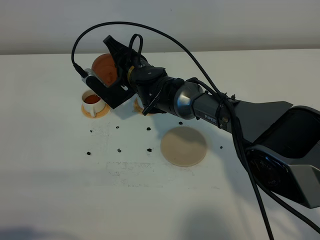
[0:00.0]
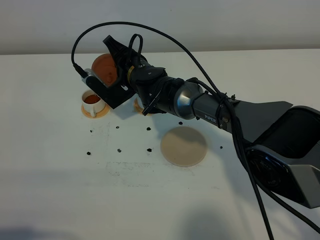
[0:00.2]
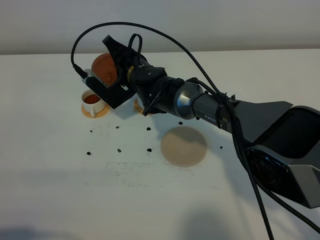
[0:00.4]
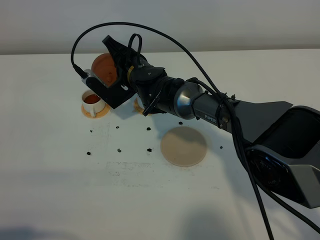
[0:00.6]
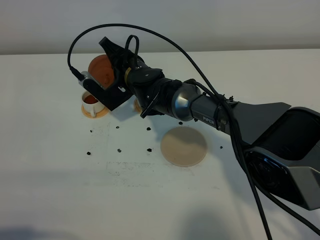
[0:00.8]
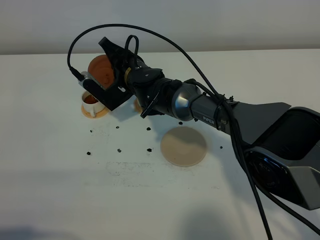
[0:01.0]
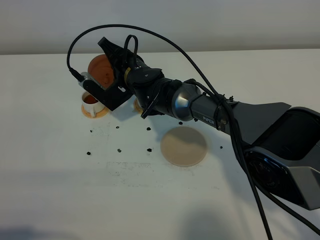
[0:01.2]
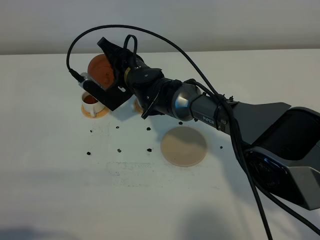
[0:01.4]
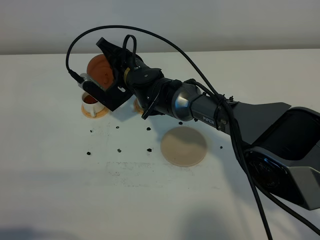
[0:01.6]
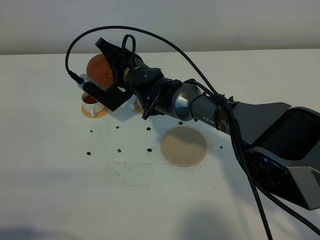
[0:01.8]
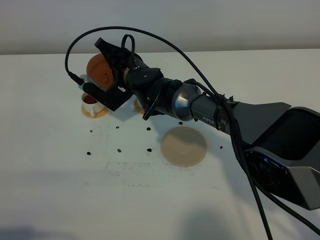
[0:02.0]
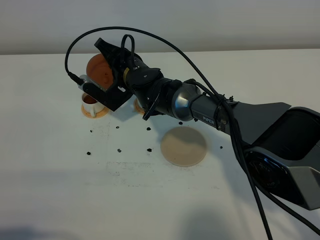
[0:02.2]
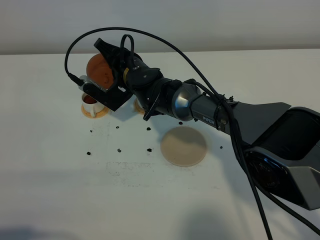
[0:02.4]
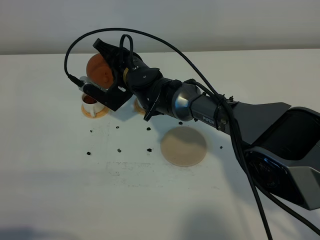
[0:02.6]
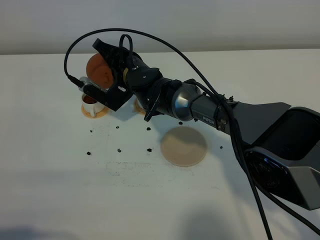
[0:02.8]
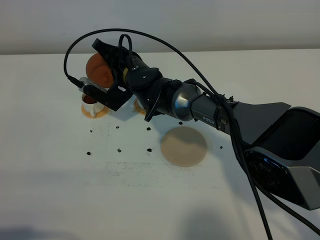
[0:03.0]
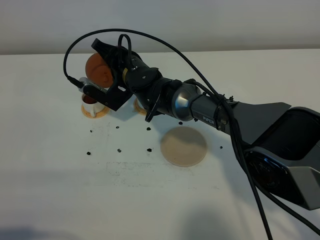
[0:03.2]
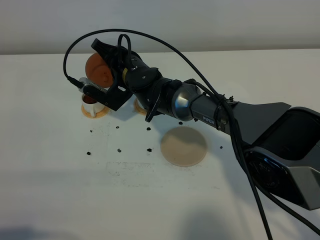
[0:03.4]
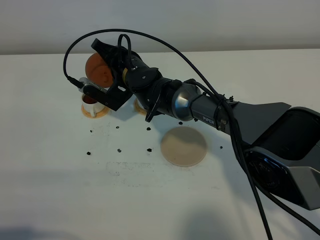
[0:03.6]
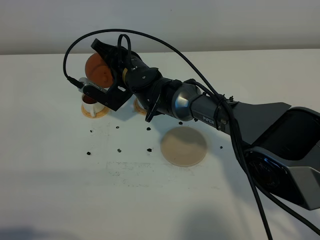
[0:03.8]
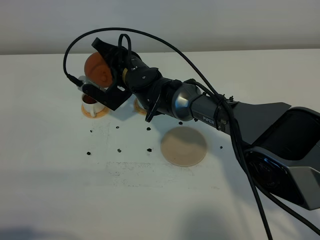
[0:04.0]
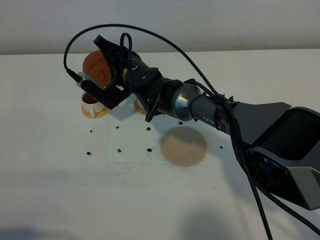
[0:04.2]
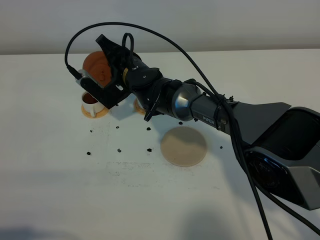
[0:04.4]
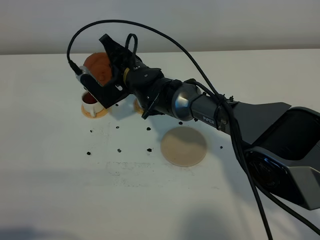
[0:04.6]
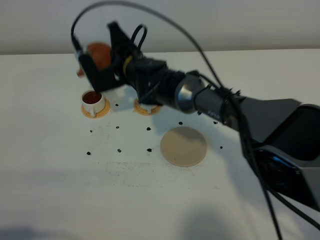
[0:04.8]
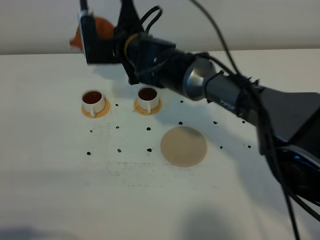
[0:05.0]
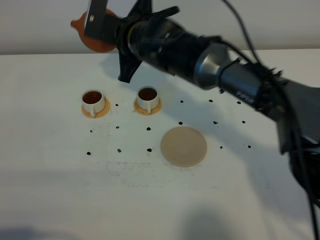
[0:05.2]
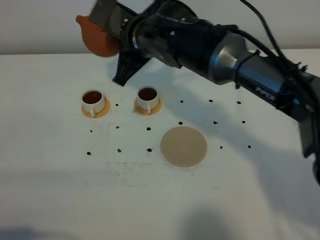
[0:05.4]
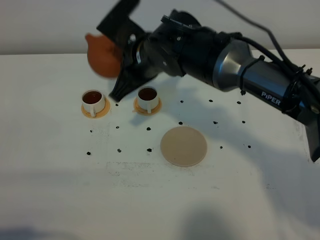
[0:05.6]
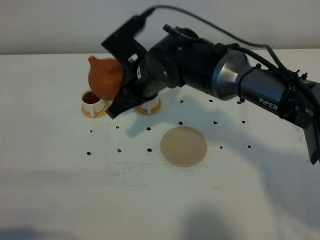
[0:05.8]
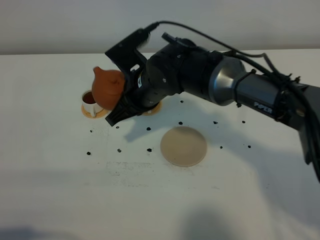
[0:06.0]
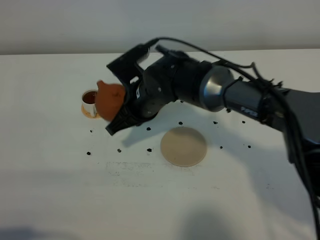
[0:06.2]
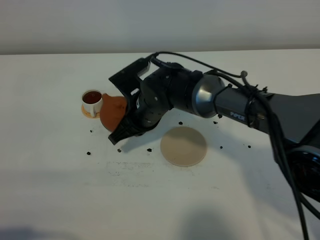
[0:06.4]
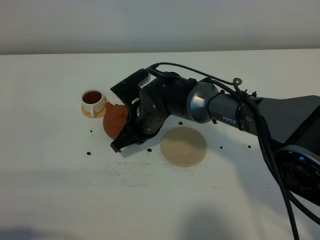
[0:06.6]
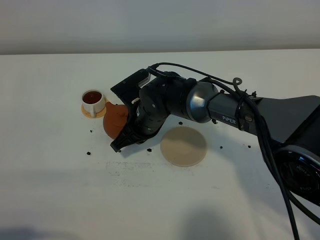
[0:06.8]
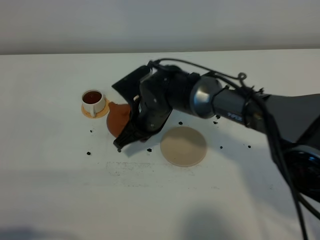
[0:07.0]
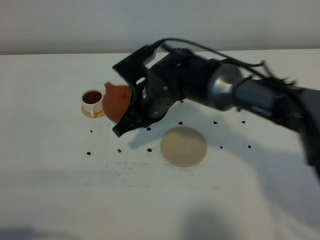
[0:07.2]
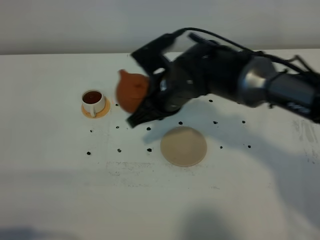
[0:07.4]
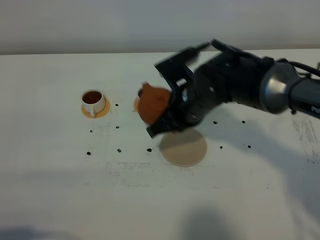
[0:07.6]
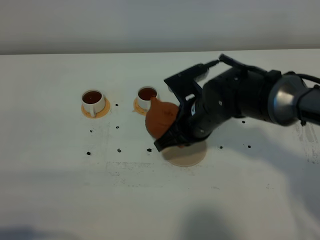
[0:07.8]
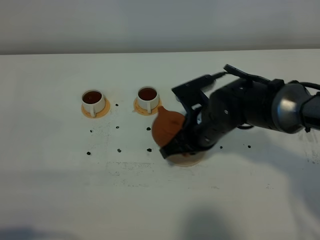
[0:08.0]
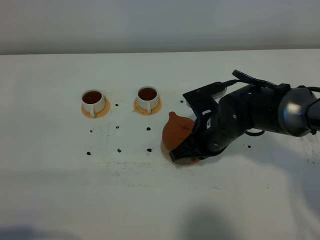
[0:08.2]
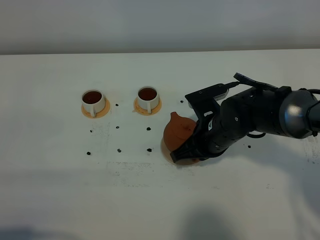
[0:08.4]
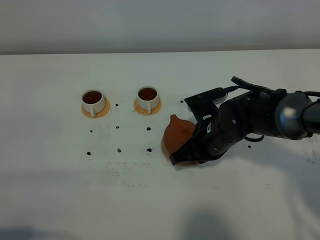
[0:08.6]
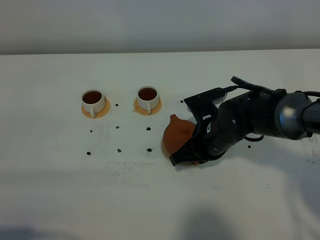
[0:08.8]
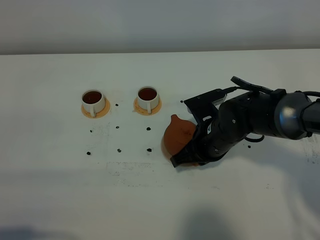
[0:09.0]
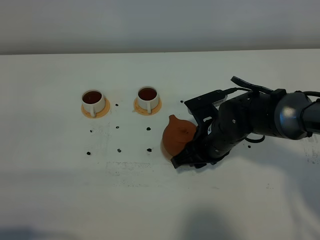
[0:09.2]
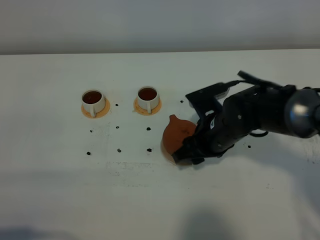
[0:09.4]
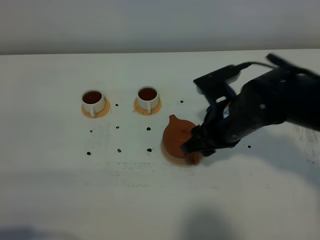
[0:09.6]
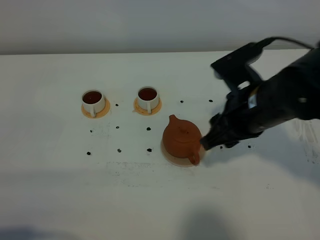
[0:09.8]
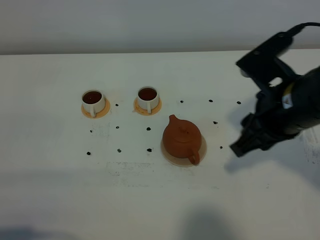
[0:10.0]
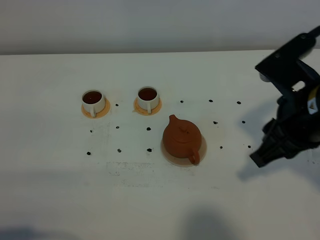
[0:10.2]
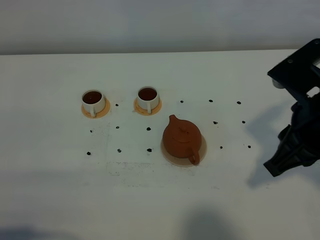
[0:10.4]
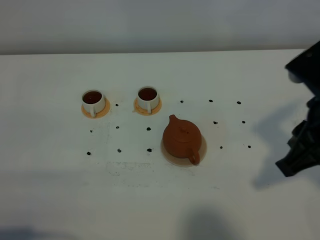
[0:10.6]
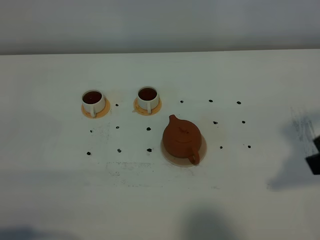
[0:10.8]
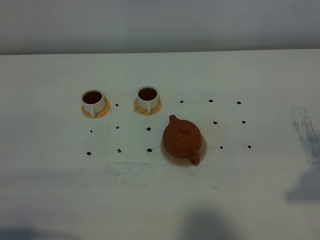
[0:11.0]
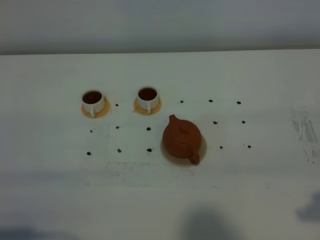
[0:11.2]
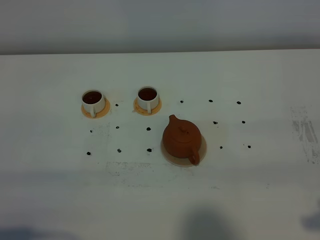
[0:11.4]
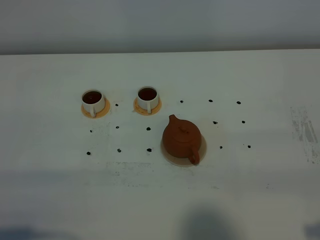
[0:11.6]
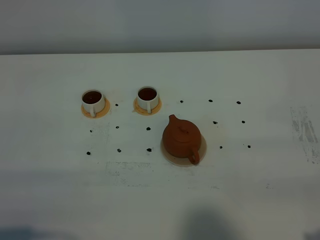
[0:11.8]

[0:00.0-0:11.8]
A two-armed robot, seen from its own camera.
Task of the whole recording: grasp the brown teapot and pour the tea into the two white teacups one by one, put the brown teapot back in its original place.
Step, 0:00.0 to 0:04.6: Pour tea into the teacup with the right gripper.
0:00.0 to 0:01.4: Both grippers stay put.
0:01.4 to 0:04.4: The grippers stay close to where they were, moving slightly.
0:04.4 to 0:06.0: The right gripper travels backward and upward by about 10 cm.
0:06.0 to 0:07.4: The right gripper travels downward and back again, roughly 10 cm each way.
0:07.4 to 0:08.8: The right gripper moves downward and to the right, some 10 cm.
0:08.8 to 0:10.4: The right gripper heads upward, backward and to the right, covering roughly 25 cm, and opens its fingers.
0:10.4 to 0:11.8: The right gripper moves backward, to the right and downward, some 20 cm.

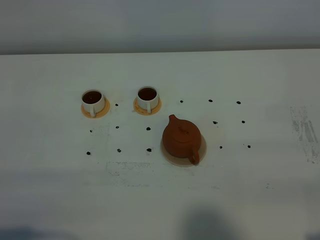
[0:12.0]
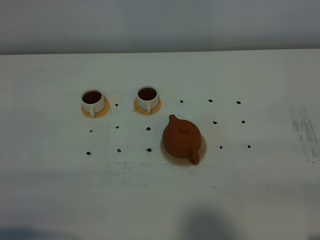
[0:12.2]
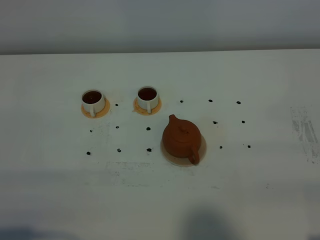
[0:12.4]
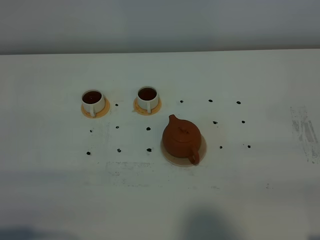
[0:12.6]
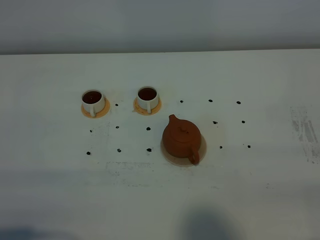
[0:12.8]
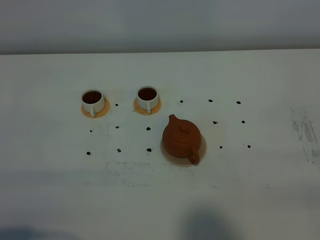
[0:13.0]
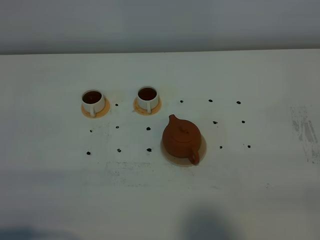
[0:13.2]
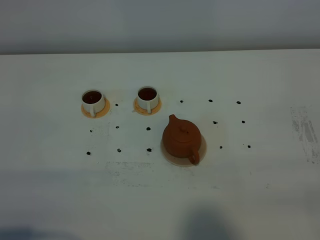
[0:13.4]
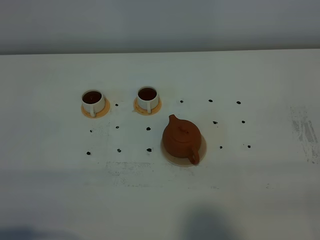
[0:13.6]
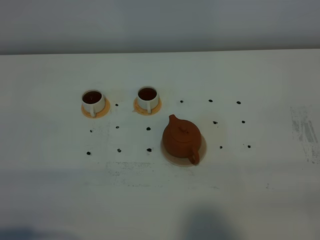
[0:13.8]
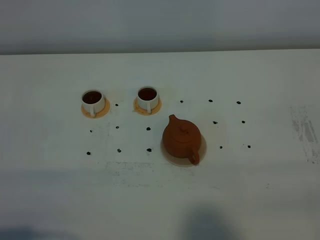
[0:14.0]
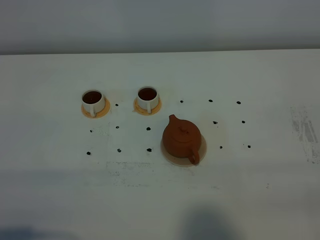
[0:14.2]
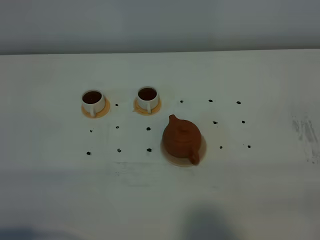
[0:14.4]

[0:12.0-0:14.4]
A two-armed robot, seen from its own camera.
Task of the whole recording: grasp the brown teapot and pour the tea into the two white teacups one by one, put the brown teapot back in its original place.
0:13.2 to 0:14.4: The two grippers keep their place.

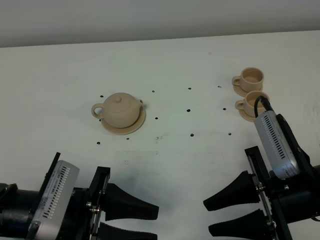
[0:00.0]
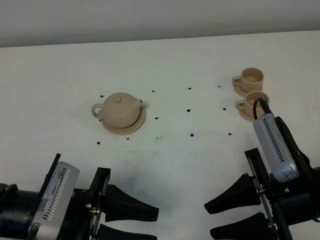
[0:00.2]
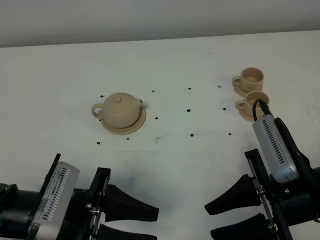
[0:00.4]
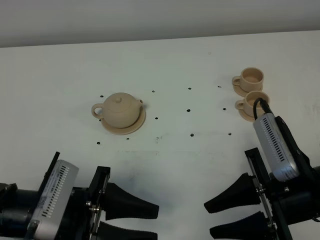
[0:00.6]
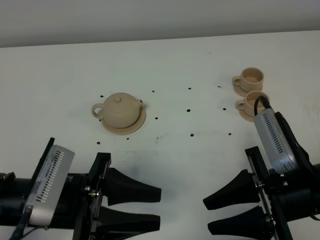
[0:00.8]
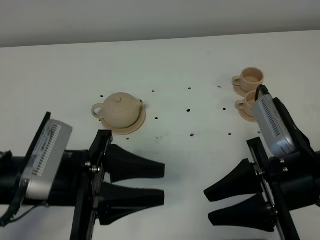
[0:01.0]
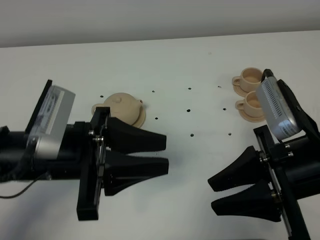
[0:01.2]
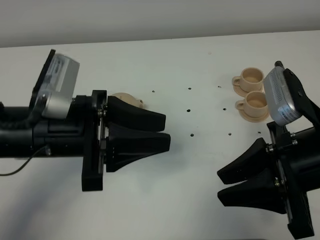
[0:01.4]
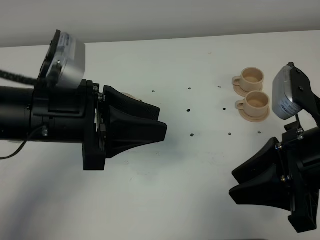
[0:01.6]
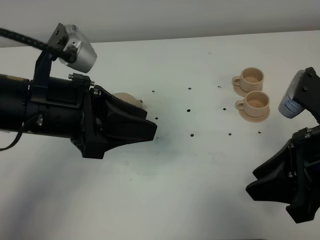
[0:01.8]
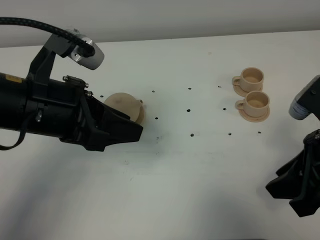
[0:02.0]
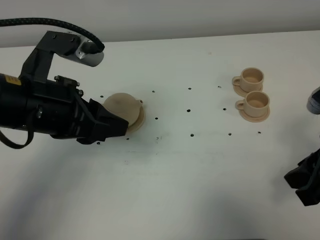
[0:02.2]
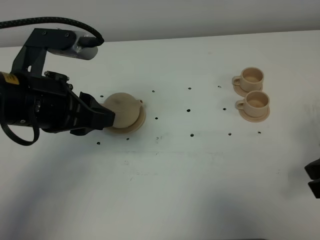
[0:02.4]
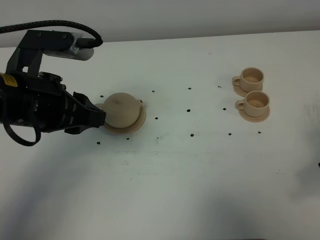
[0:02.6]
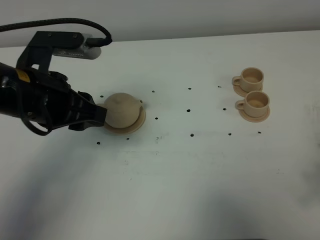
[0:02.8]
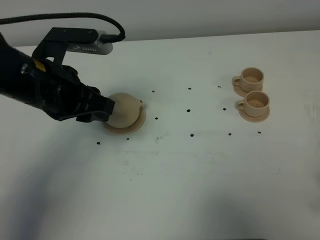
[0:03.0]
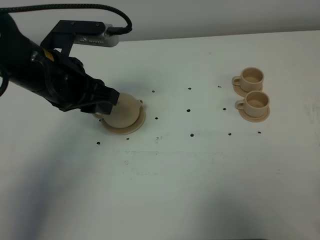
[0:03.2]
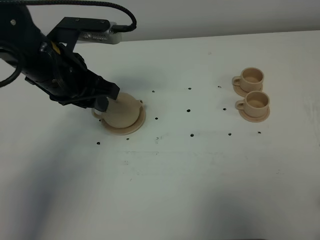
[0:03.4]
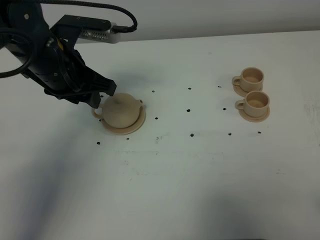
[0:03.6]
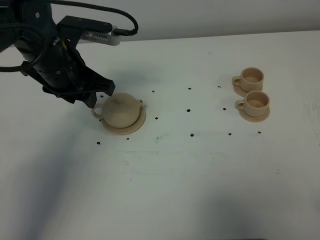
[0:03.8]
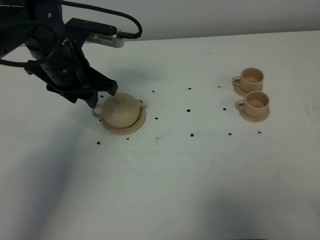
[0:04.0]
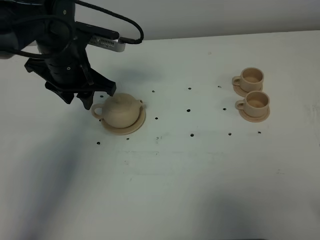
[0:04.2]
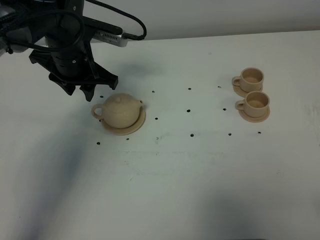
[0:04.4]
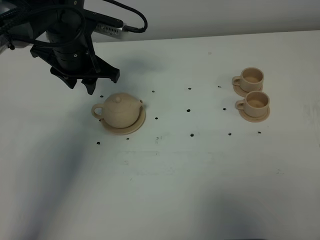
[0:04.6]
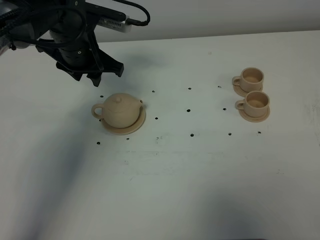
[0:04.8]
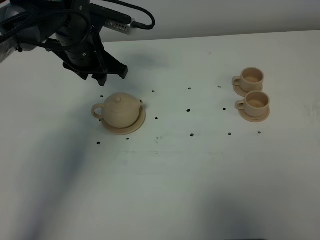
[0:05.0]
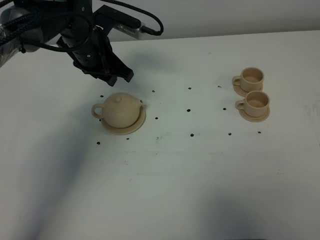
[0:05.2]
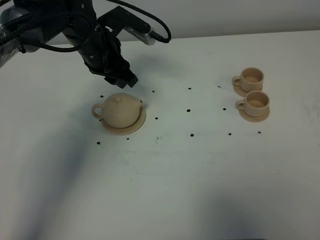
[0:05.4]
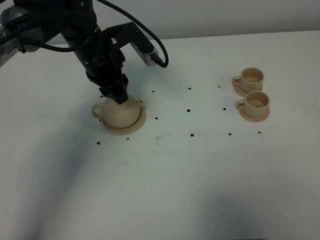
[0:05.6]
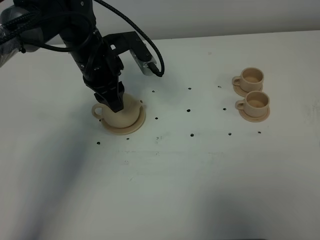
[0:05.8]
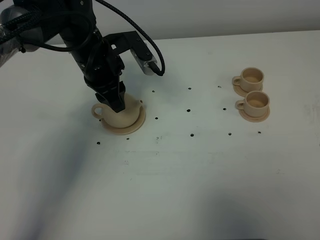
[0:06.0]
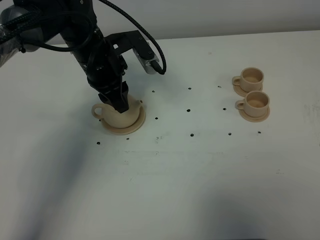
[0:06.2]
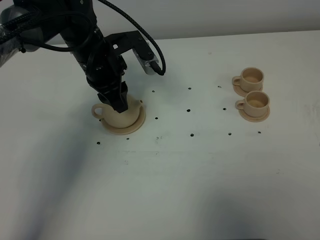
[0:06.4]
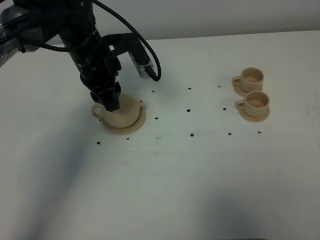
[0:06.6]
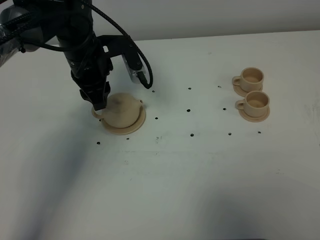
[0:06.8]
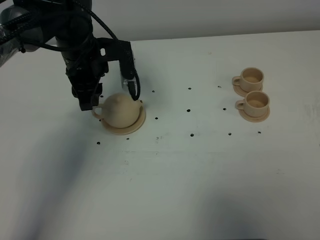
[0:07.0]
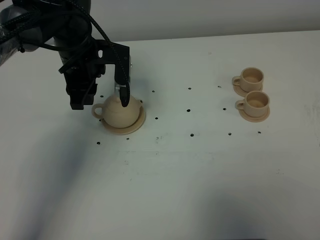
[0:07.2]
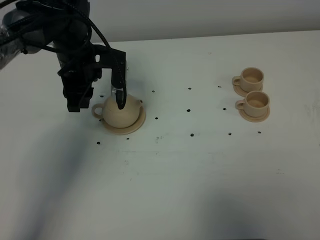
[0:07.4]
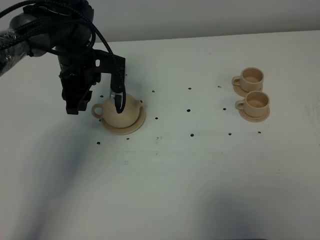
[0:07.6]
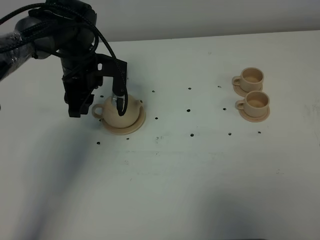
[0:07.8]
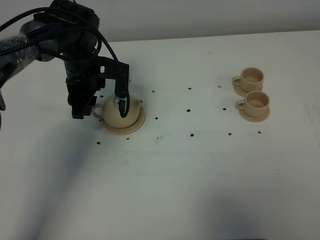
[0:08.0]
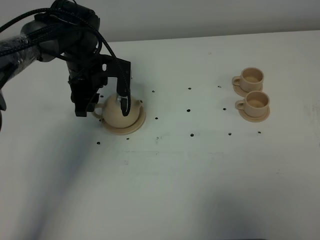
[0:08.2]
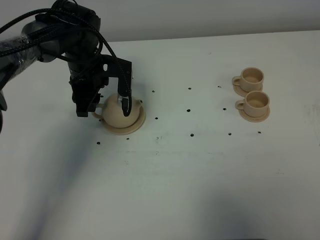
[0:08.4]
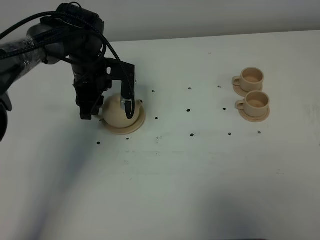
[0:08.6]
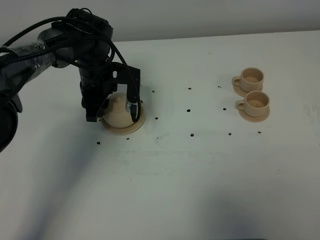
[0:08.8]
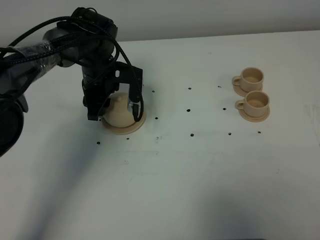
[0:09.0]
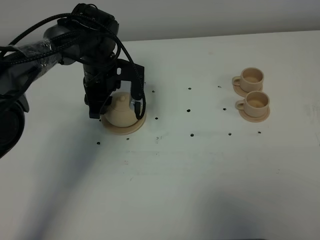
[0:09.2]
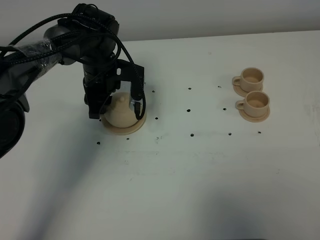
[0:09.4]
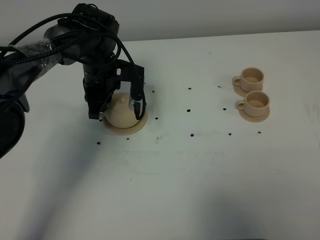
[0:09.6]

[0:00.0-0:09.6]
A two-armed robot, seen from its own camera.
Task of the whole recording: grasp the brown teapot and pour the tea into the two brown teacups one by one, put the brown teapot back in its original place.
0:00.0 to 0:01.6: The left gripper shifts about 15 cm upward and forward; the right gripper is displaced upward by some 10 cm.
0:01.6 to 0:03.2: The left gripper is displaced forward by roughly 10 cm. The right gripper goes about 15 cm to the right and backward.
0:03.2 to 0:04.8: The left gripper moves forward, approximately 10 cm.
0:06.4 to 0:08.0: The left gripper moves downward, approximately 5 cm.
0:08.0 to 0:09.6: The left gripper closes its fingers.
